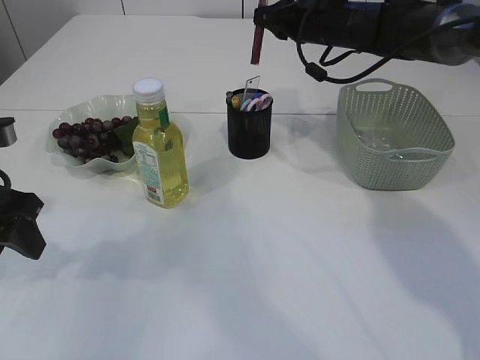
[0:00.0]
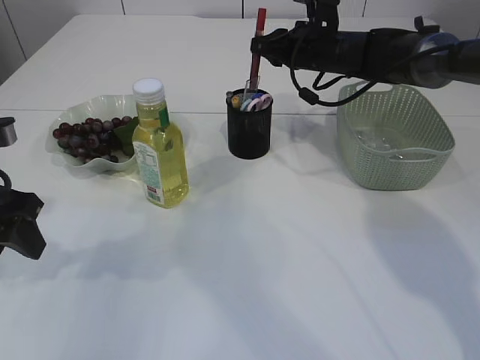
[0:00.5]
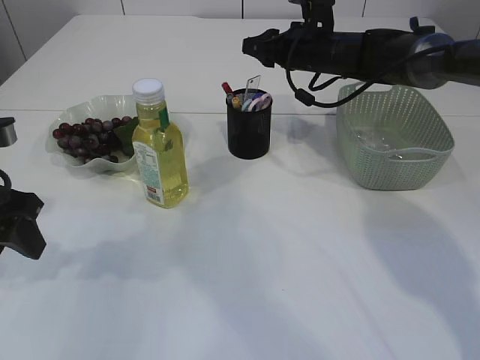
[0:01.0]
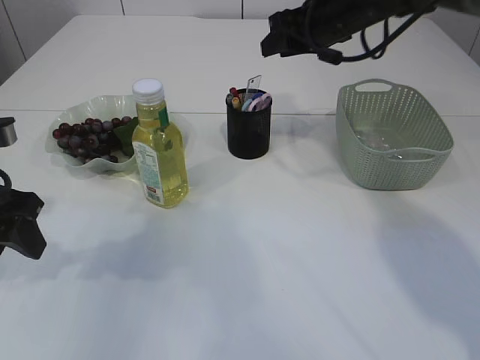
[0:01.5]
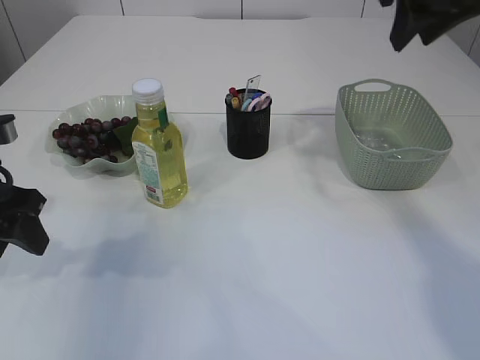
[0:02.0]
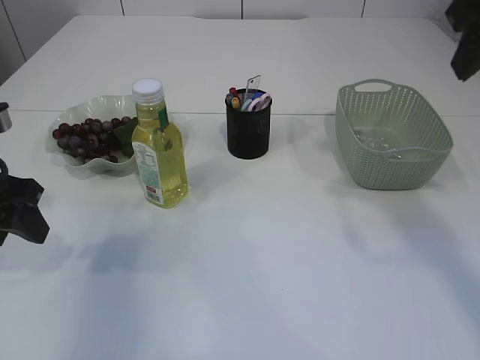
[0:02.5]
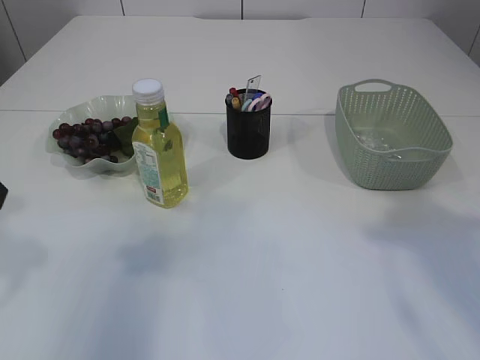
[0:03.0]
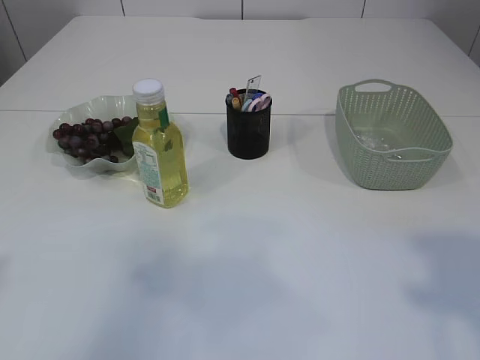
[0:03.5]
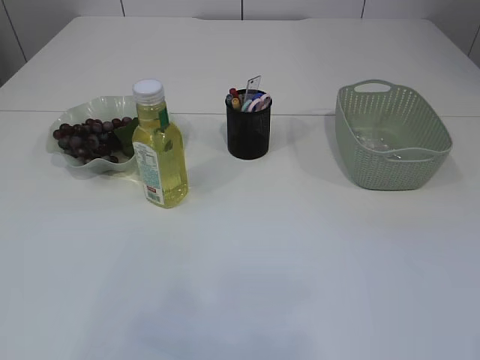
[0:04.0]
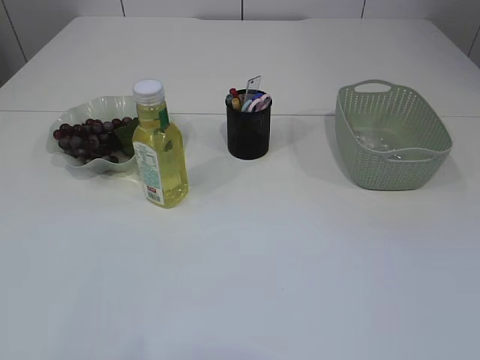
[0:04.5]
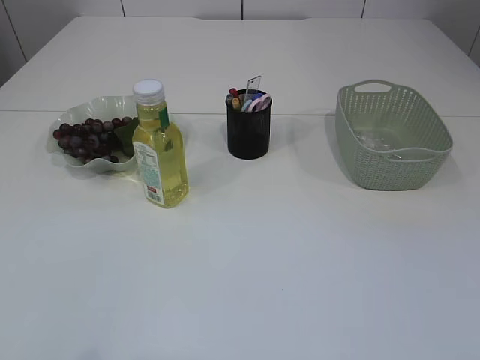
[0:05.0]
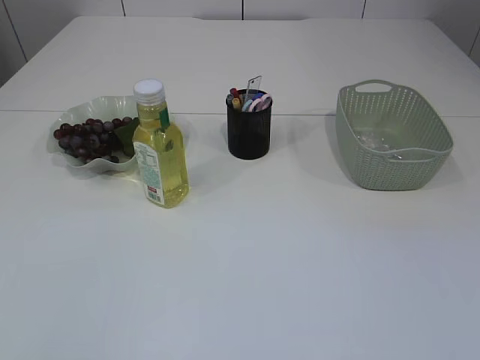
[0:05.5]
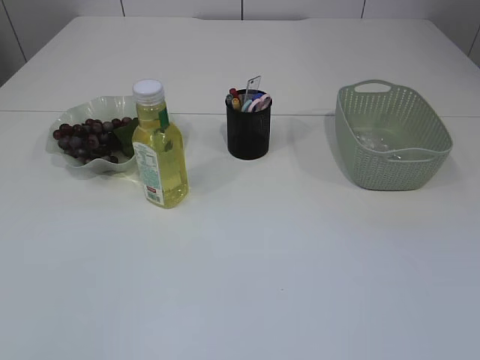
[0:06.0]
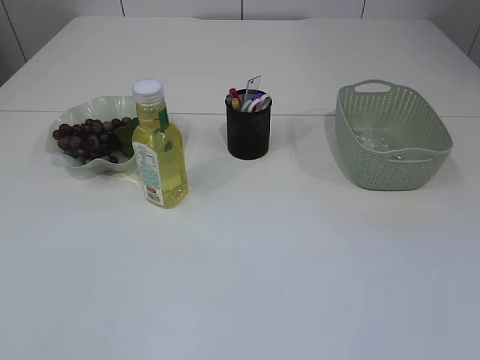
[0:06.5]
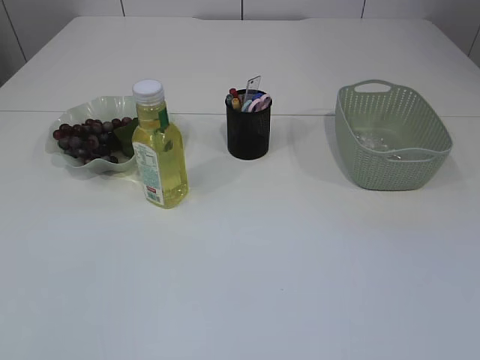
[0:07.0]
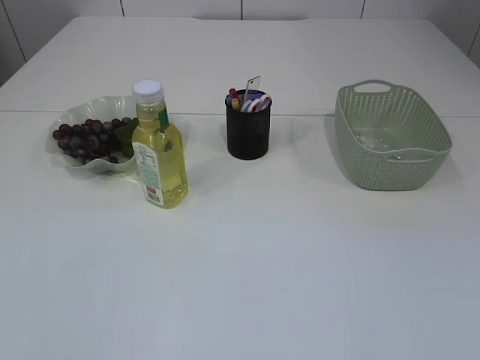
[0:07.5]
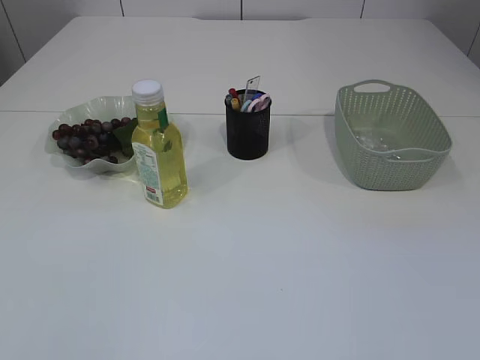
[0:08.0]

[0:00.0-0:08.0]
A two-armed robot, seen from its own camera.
0.0 to 2.0 s: The right gripper goes some 20 cm backward, upward and to the right, and opens its fingers.
2.0 to 4.0 s: The left gripper shifts approximately 25 cm backward and upward; the right gripper travels backward by roughly 35 cm.

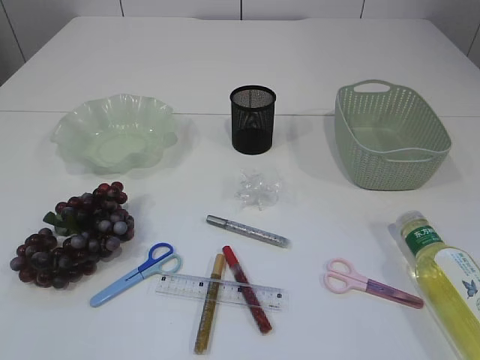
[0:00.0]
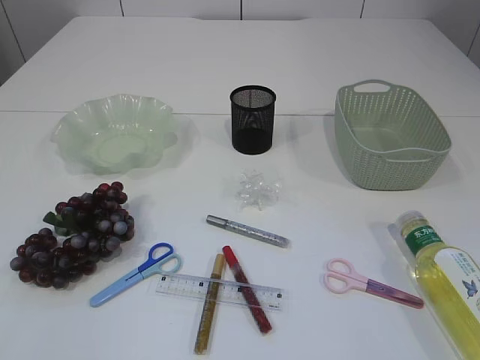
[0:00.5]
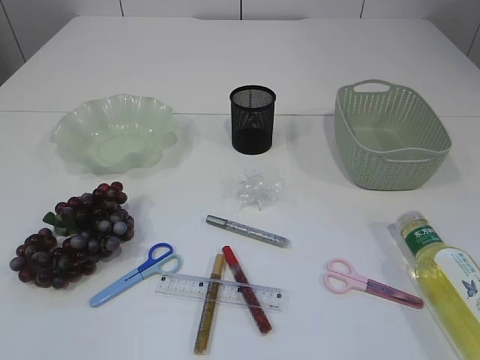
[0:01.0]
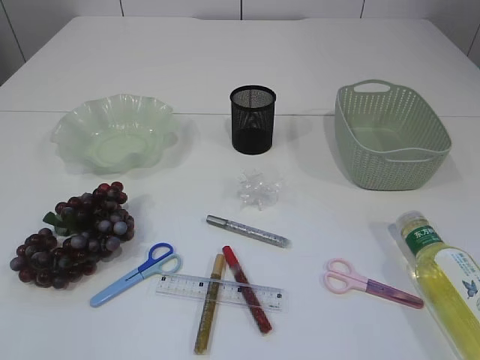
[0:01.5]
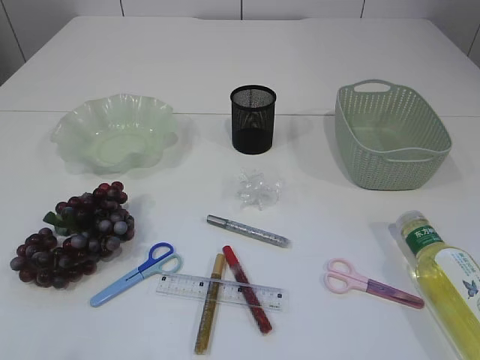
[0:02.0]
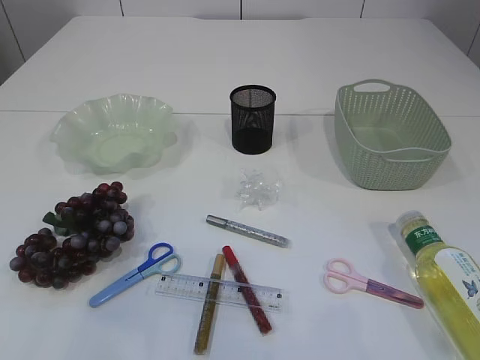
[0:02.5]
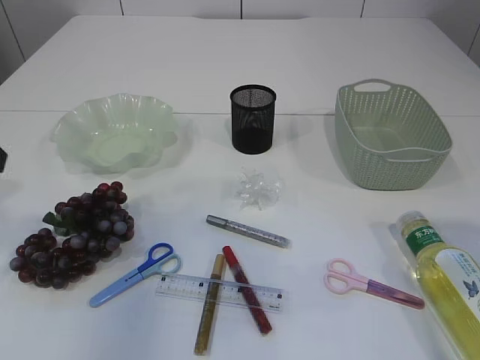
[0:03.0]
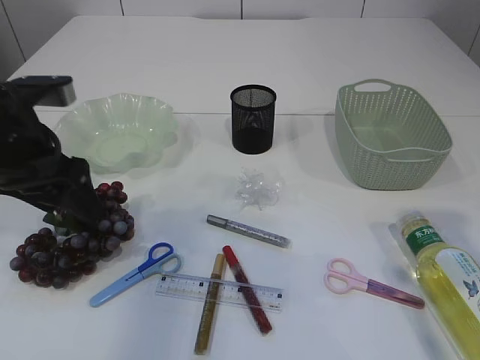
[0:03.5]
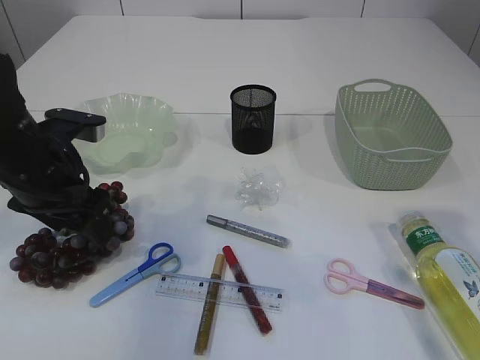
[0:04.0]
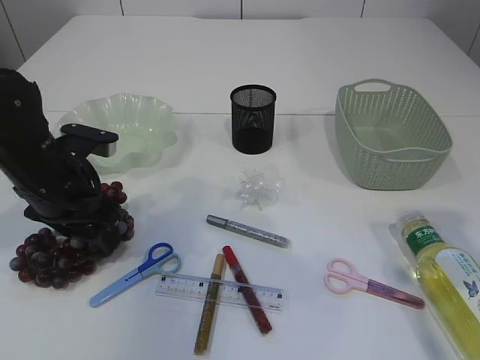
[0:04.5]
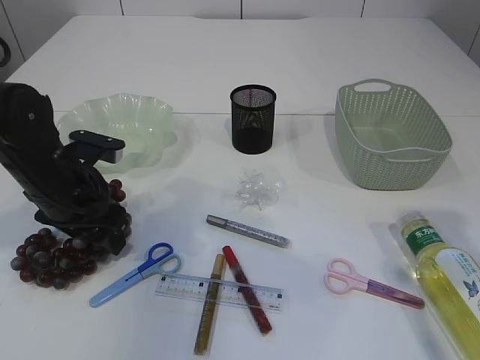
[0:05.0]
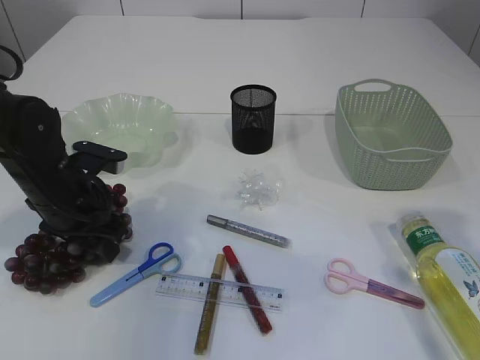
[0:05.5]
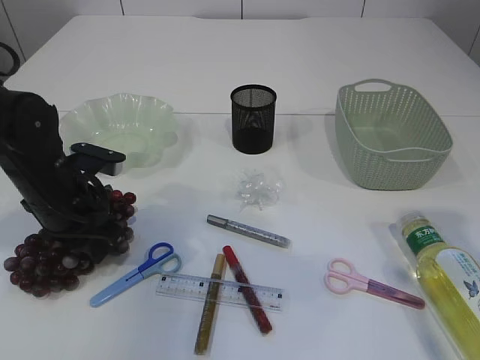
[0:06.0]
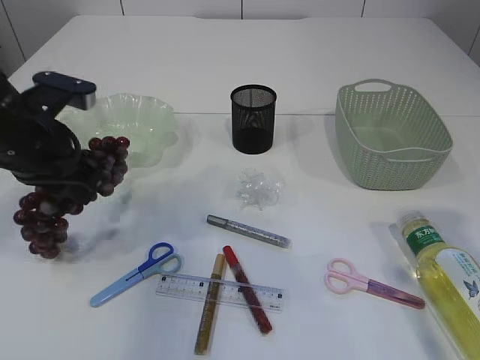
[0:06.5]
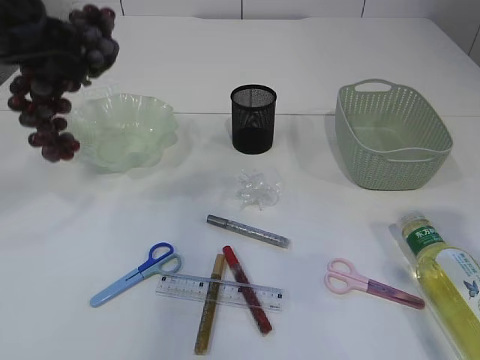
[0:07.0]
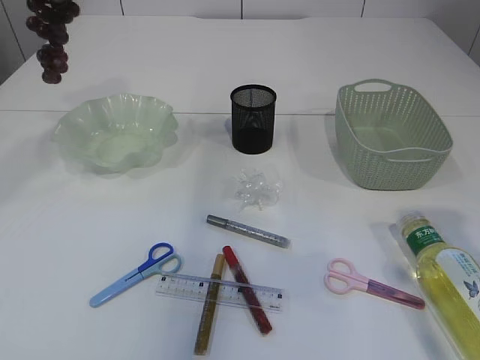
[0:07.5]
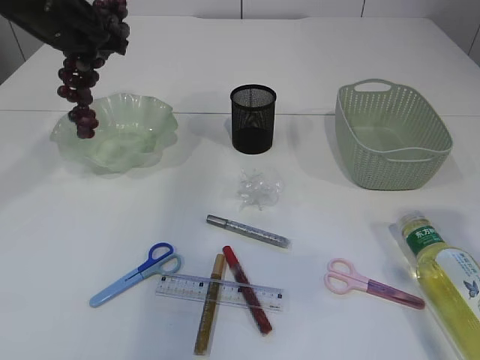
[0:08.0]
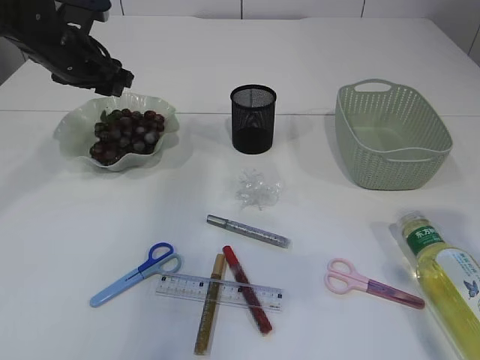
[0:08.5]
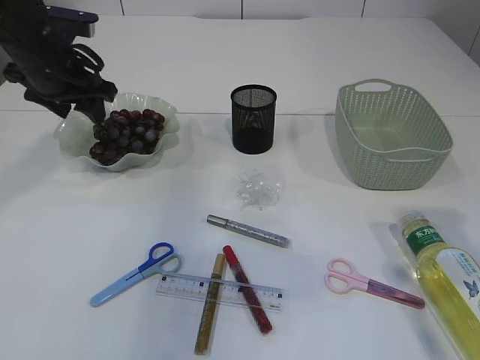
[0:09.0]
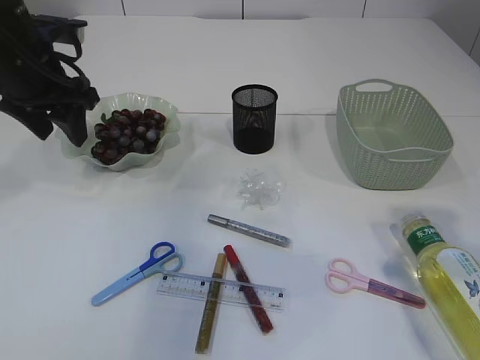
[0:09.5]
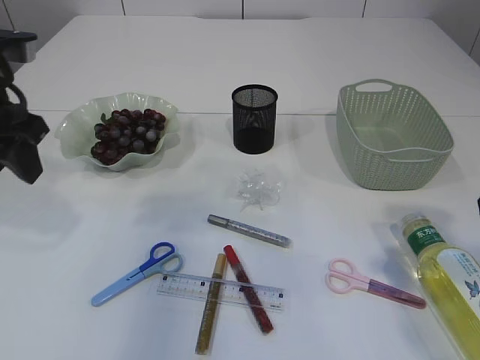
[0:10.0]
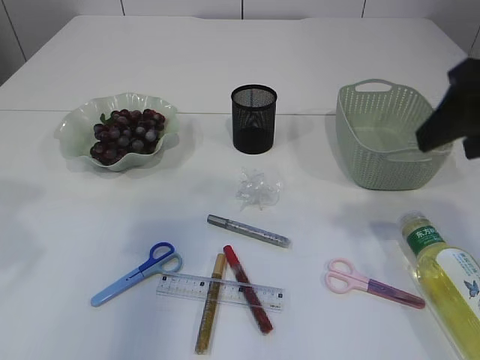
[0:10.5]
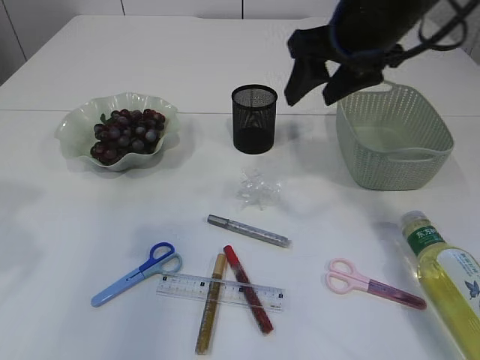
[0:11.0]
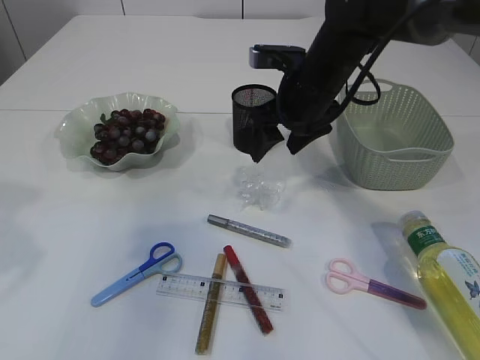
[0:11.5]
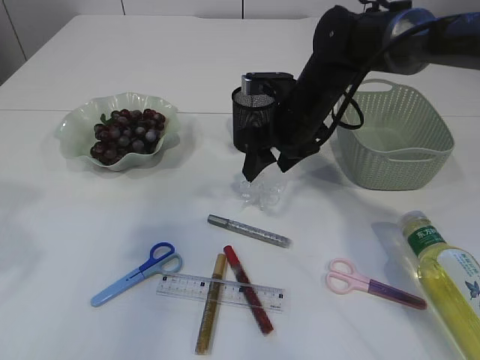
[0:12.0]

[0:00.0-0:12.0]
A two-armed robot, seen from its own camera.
Step, 0.0 to 6.5 s: Pick up the grapes.
Step, 7.0 to 9.0 s: Place the grapes in the plate.
2.0 to 4.0 s: The right gripper travels forward by approximately 20 cm; the left gripper travels forward by about 30 cm.
4.0 to 6.0 s: The left gripper travels downward by roughly 5 cm, and closes up.
6.0 to 8.0 s: The left gripper goes approximately 20 cm upward and forward.
8.0 to 10.0 s: The left gripper heads backward, covering roughly 15 cm, and opens its fingers.
10.0 to 12.0 s: The right gripper goes roughly 35 cm forward, to the left and downward; the left gripper heads backward, covering approximately 10 cm.

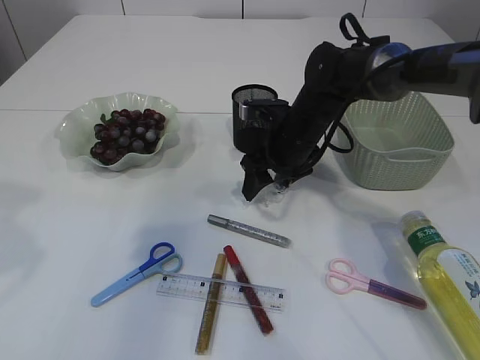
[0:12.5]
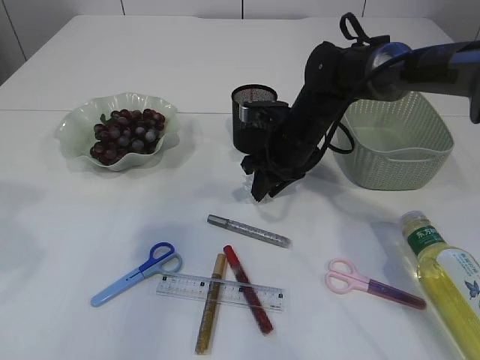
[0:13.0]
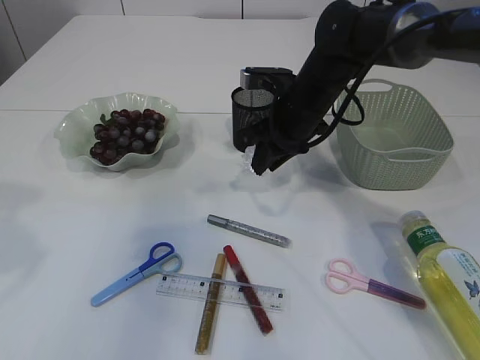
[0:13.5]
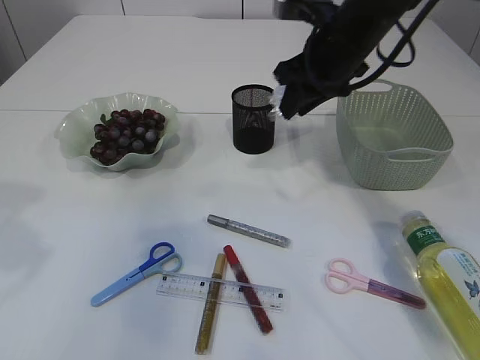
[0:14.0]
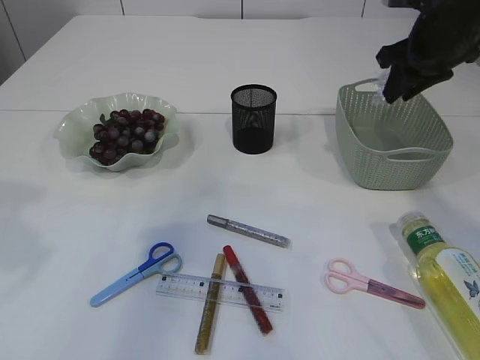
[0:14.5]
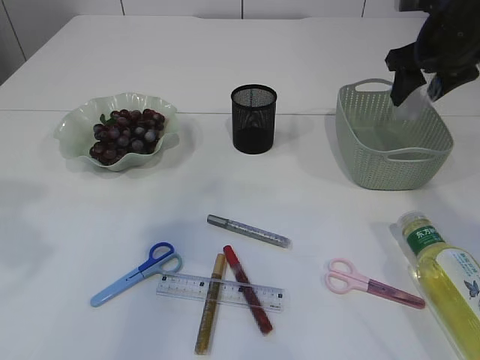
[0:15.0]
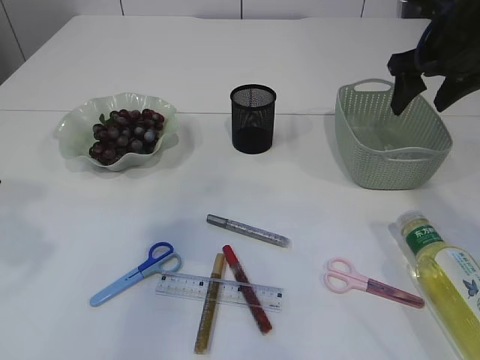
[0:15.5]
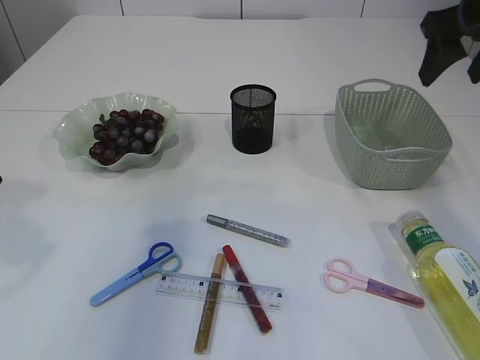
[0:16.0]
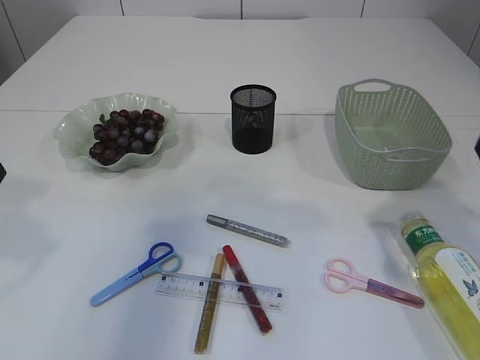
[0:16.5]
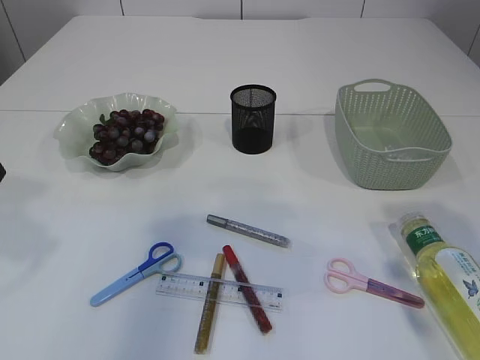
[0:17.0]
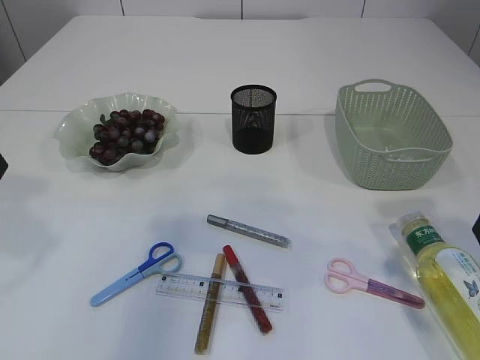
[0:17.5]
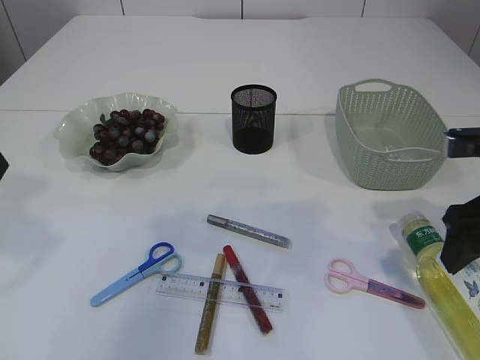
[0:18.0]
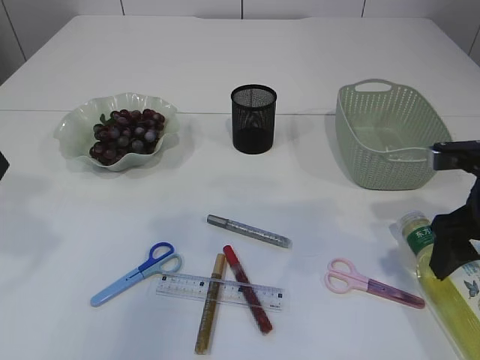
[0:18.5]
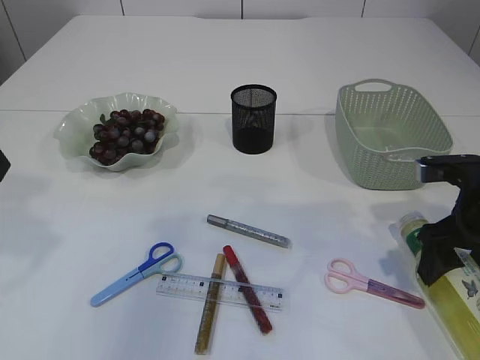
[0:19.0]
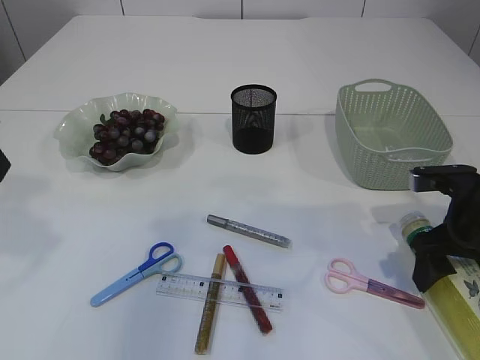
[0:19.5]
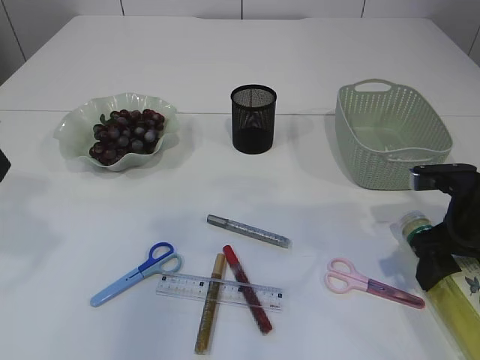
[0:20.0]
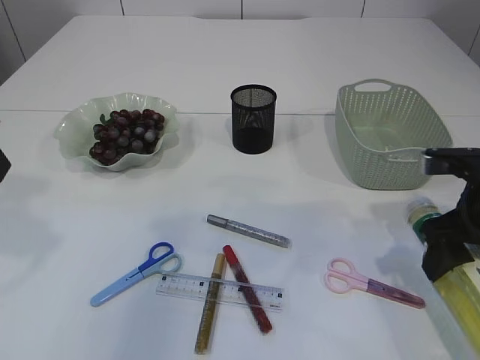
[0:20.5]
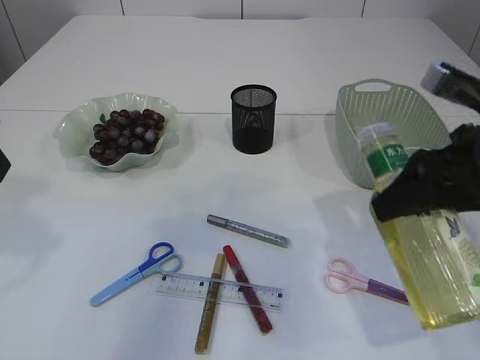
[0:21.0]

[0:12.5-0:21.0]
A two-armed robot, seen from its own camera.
Step, 14.5 to 15.5 s: Place the plastic in the basket.
12.5 to 14.5 s: The right gripper shifts some 20 cm to the right and upward, and closes its fingers.
14.5 to 16.5 s: The right gripper moves backward, about 15 cm, and opens its fingers.
16.5 to 19.0 s: The right gripper travels downward by approximately 20 cm.
19.0 to 21.0 s: The right gripper shifts approximately 10 cm upward.
